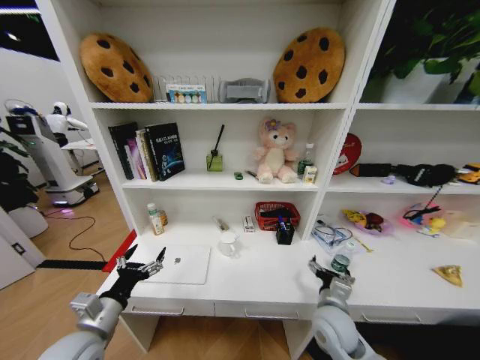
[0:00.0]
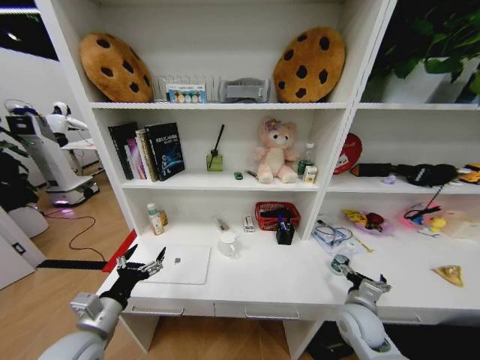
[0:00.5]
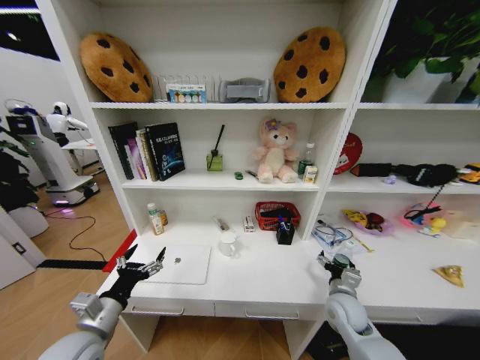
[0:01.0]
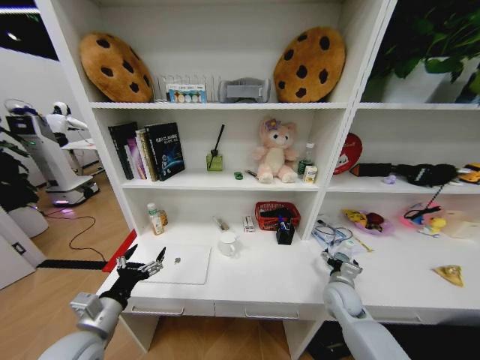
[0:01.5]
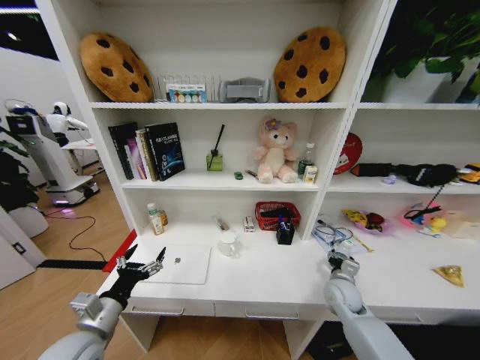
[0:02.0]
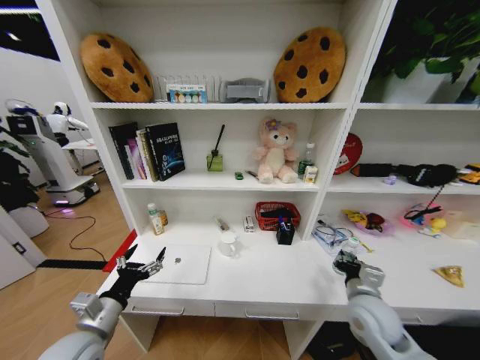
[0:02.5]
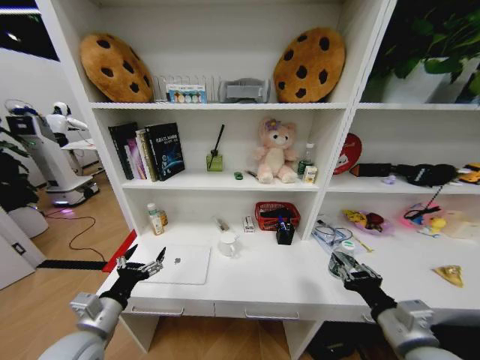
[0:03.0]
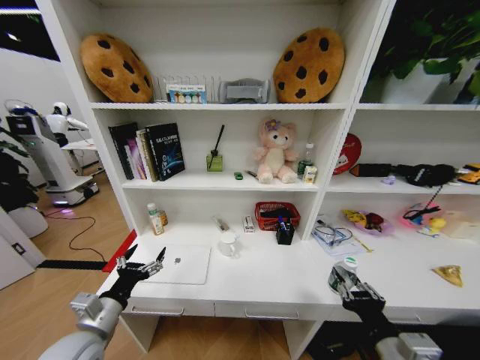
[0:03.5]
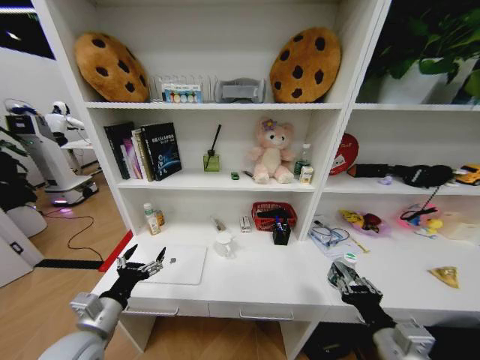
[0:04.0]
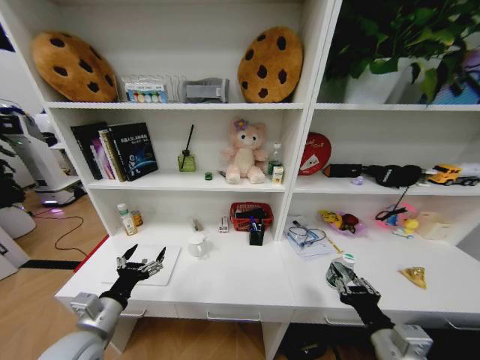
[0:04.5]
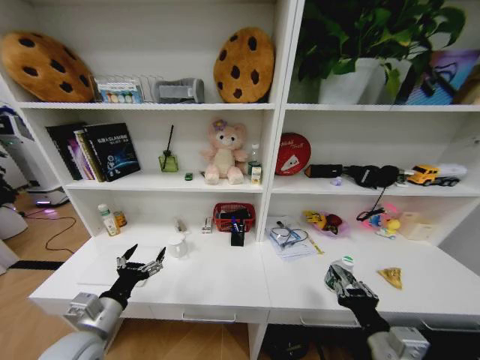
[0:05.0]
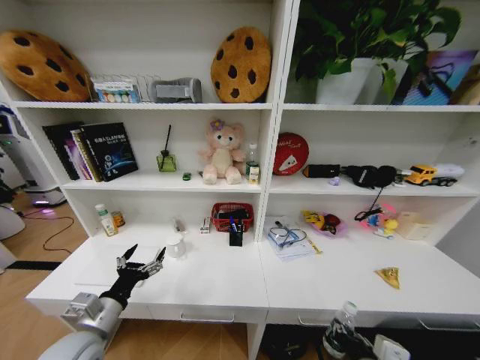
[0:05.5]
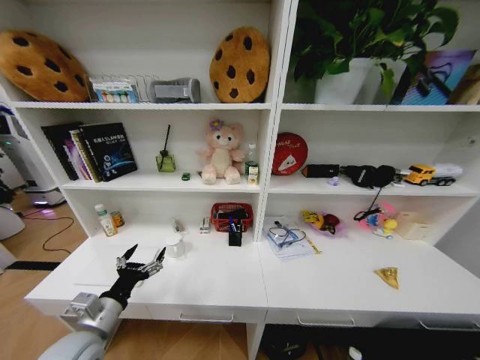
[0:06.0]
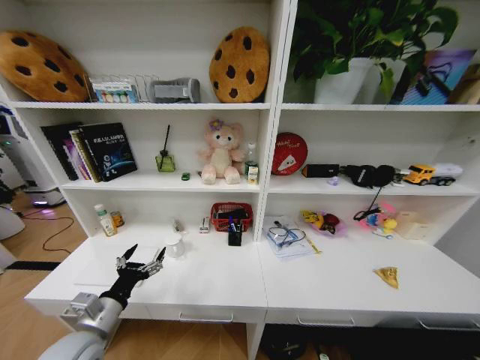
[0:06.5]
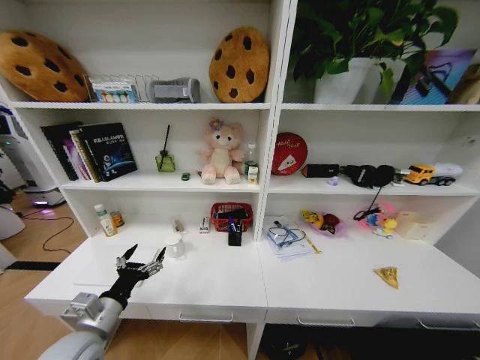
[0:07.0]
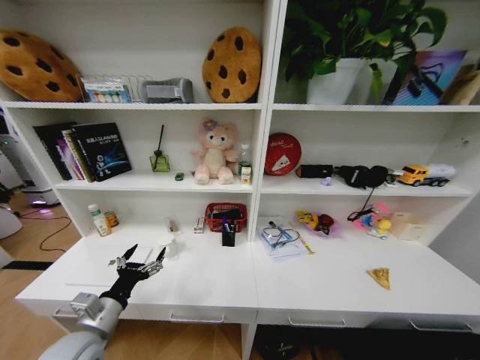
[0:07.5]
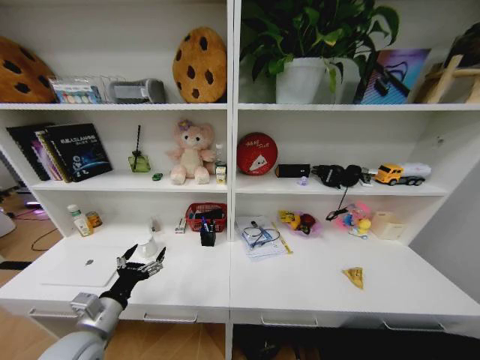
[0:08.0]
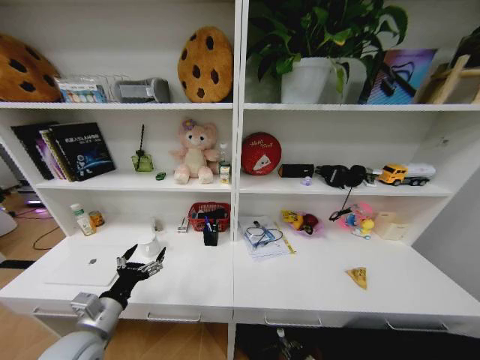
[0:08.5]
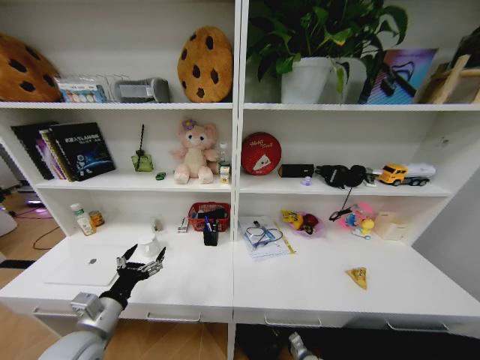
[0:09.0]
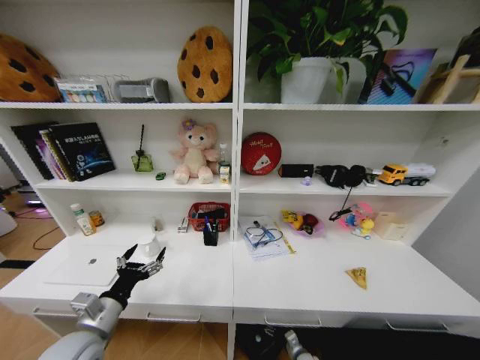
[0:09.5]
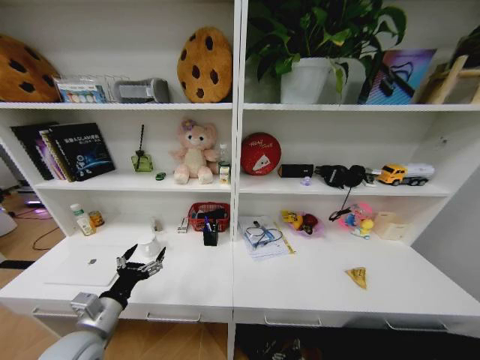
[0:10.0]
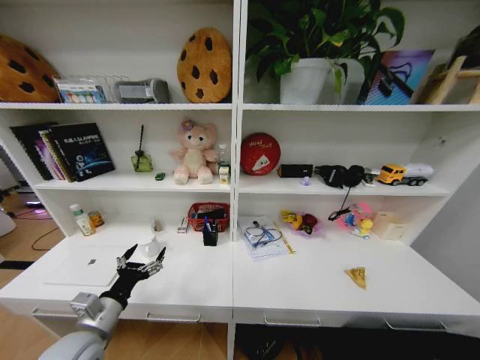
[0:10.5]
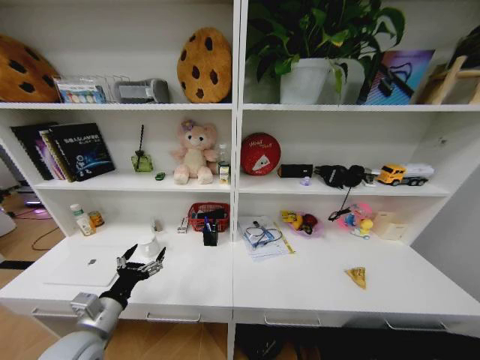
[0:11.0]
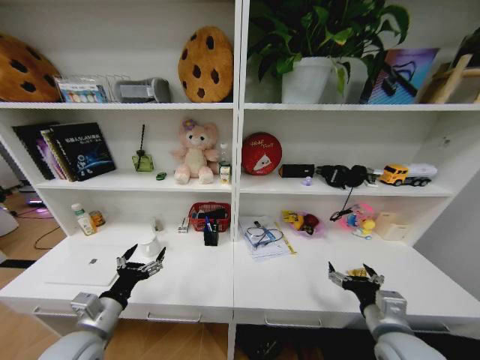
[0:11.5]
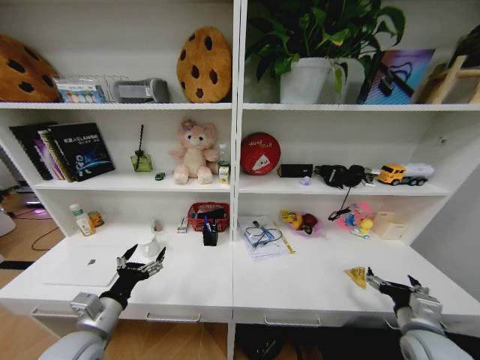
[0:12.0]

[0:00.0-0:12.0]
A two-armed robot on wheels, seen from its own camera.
Task of the whole recording: Organize the objects on the table.
0:00.0 to 0:02.0: The right gripper moves to the right and forward, approximately 15 cm.
0:02.0 to 0:04.0: The right gripper moves backward and upward, roughly 25 cm, and closes its fingers.
0:04.0 to 0:06.0: The right gripper travels downward by about 15 cm.
0:06.0 to 0:08.0: The right gripper travels downward by about 30 cm.
0:08.0 to 0:10.0: The right gripper is displaced forward and to the left by roughly 15 cm, and opens up.
0:10.0 to 0:12.0: The right gripper heads upward, covering about 35 cm.

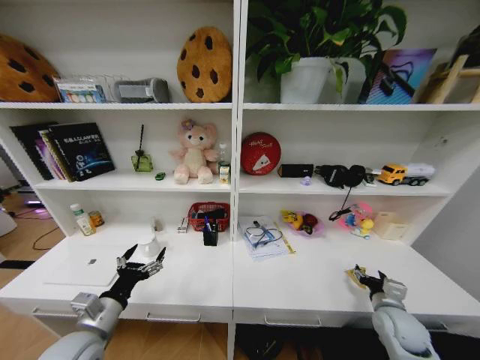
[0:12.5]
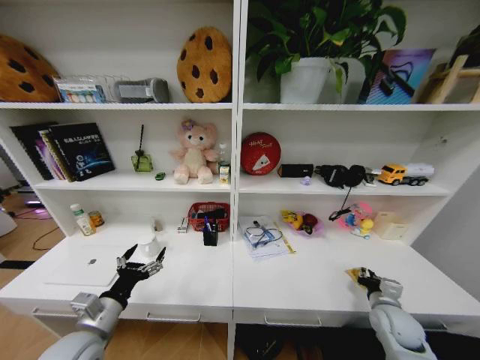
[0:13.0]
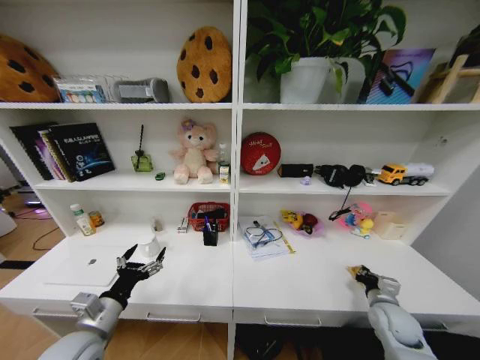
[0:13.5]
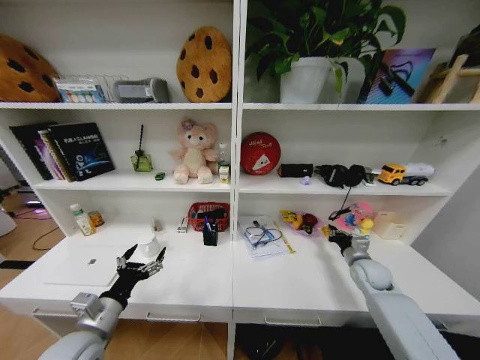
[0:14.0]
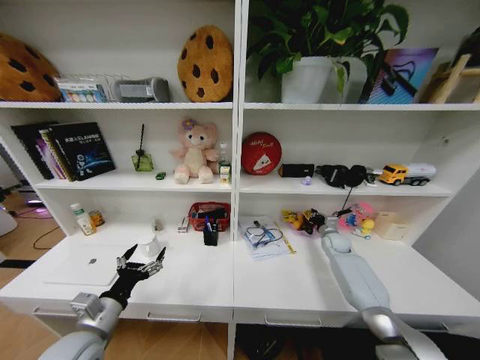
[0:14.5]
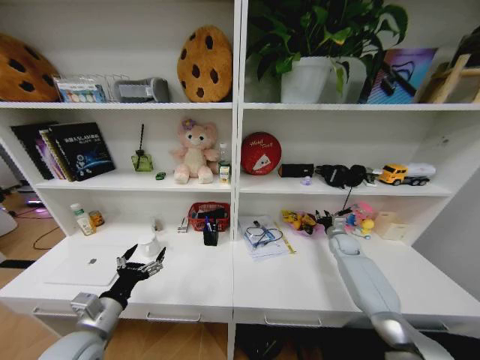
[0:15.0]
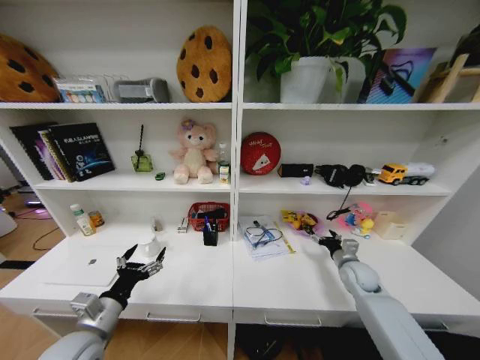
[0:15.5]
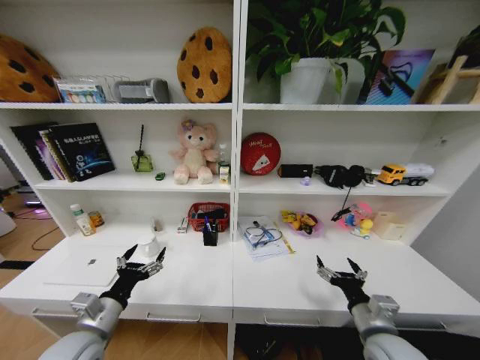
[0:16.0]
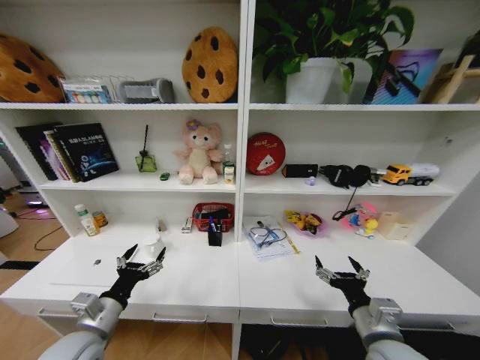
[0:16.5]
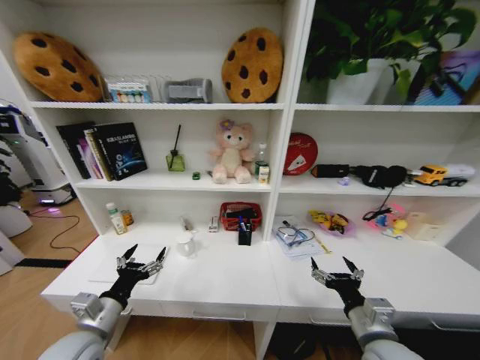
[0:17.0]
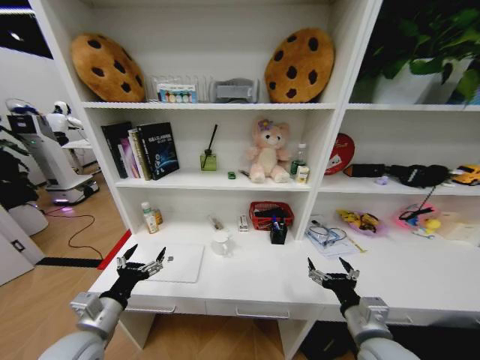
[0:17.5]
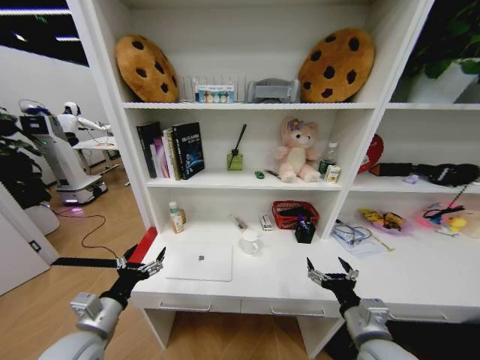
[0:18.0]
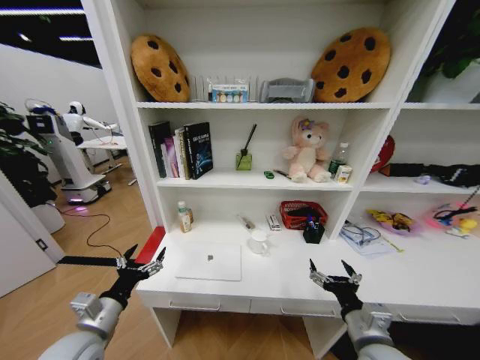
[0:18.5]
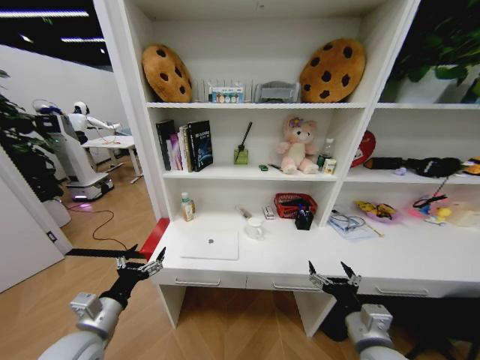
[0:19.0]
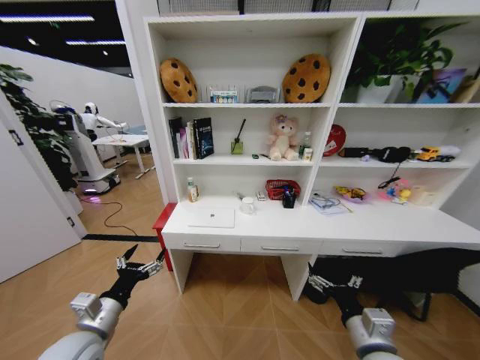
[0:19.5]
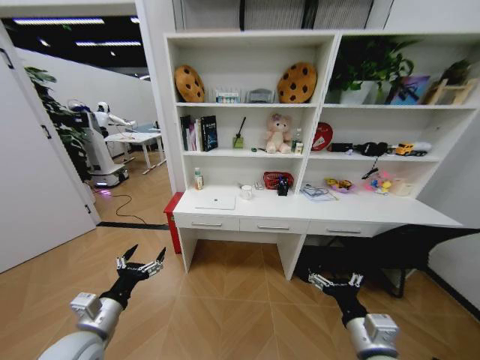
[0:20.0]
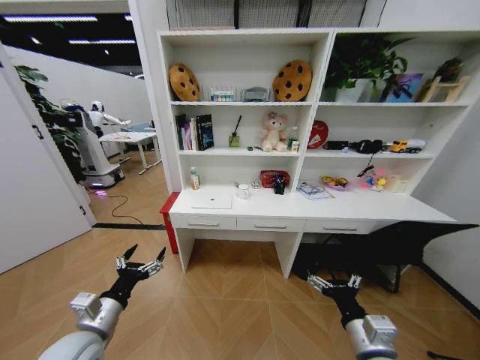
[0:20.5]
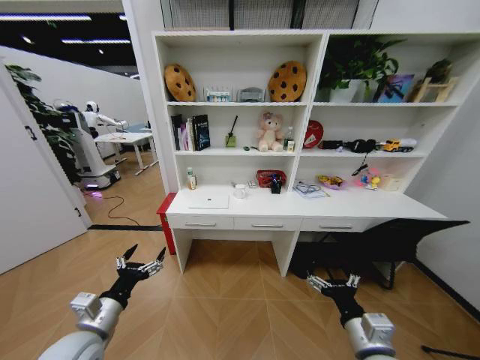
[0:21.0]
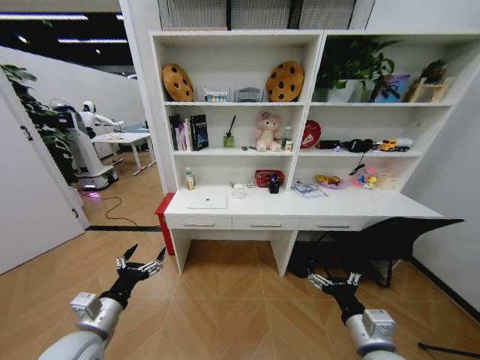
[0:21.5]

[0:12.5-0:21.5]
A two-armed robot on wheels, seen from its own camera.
Task of the whole recording: Organize the objects on the table.
0:12.5 to 0:14.5: The right gripper shifts roughly 30 cm forward, and closes.
0:14.5 to 0:17.0: The right gripper travels backward by roughly 35 cm, and opens its fingers.

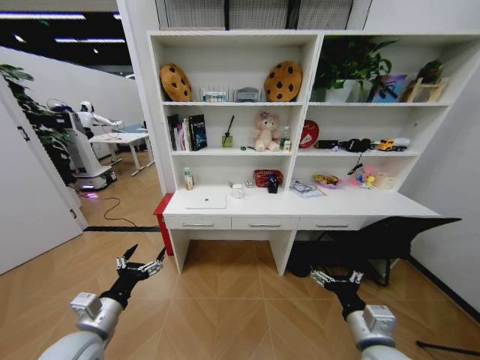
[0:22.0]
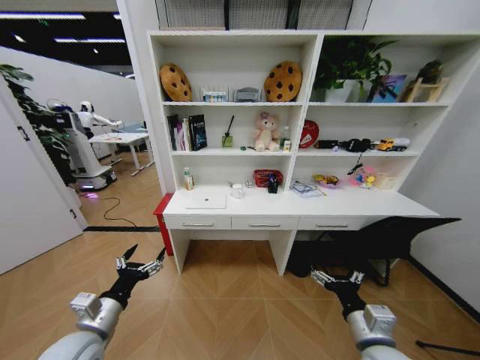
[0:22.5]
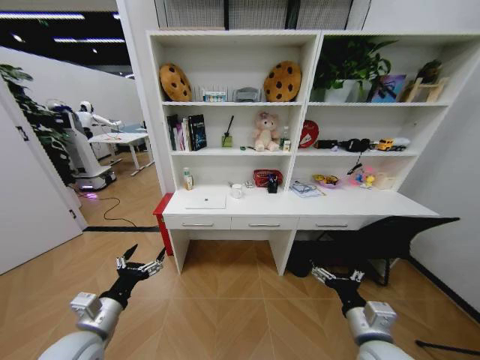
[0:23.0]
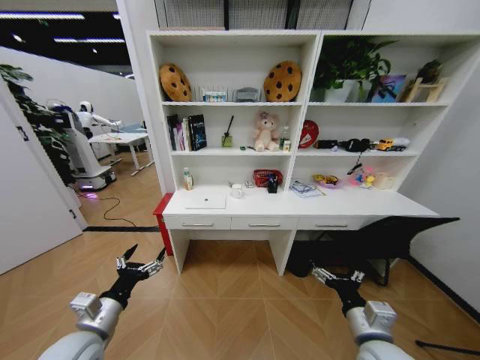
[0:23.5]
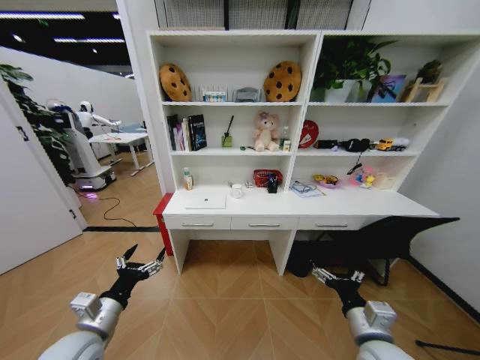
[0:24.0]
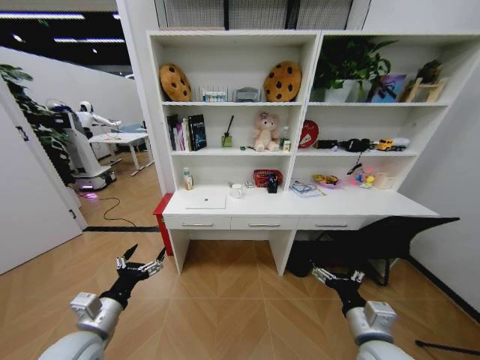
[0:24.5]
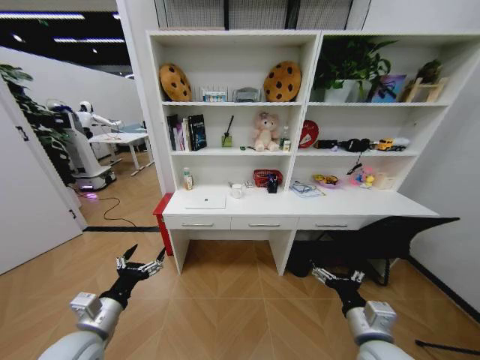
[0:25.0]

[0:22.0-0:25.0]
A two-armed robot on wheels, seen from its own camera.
Task of the whole recording: Organize the objects on the table.
0:22.0 to 0:25.0: Both grippers stay about where they are.
